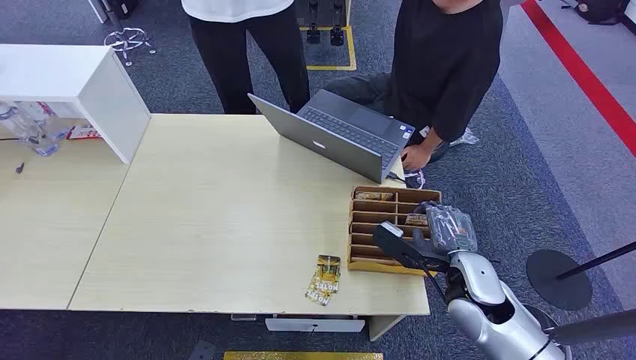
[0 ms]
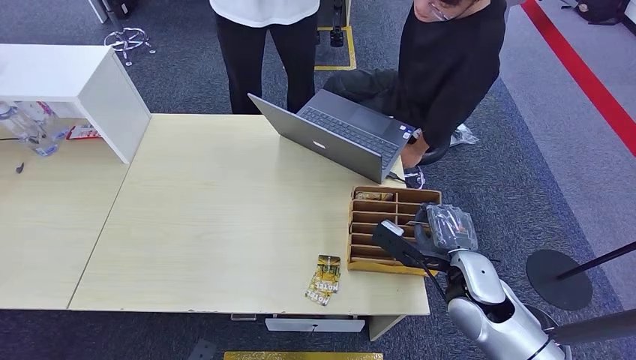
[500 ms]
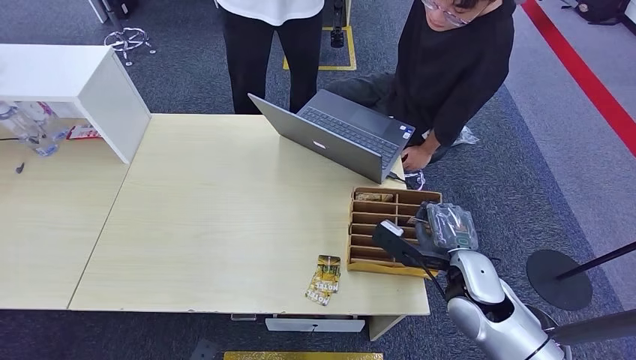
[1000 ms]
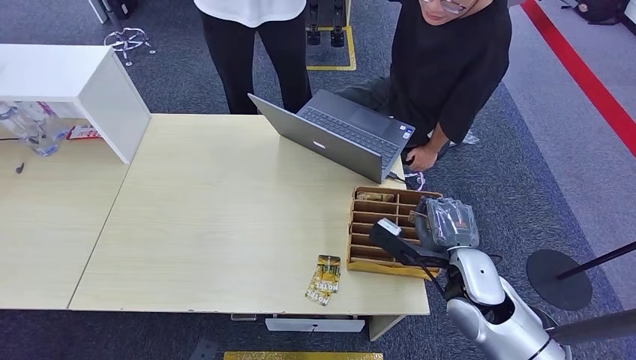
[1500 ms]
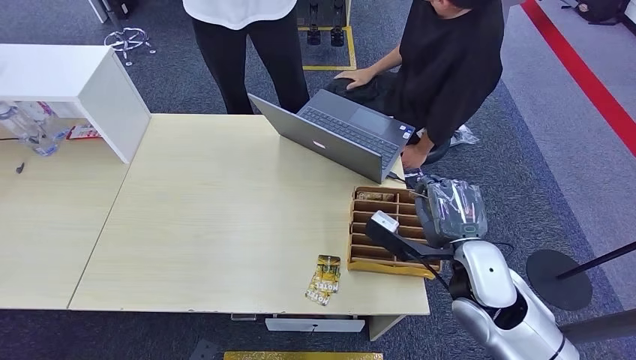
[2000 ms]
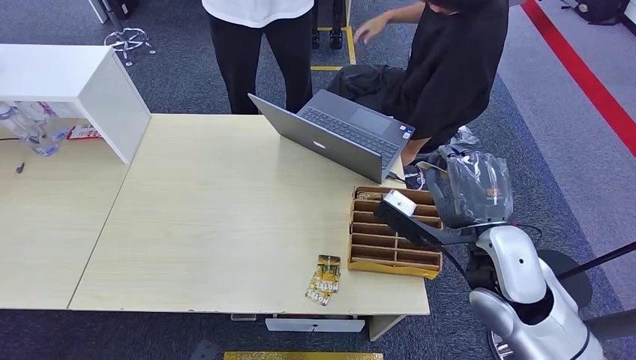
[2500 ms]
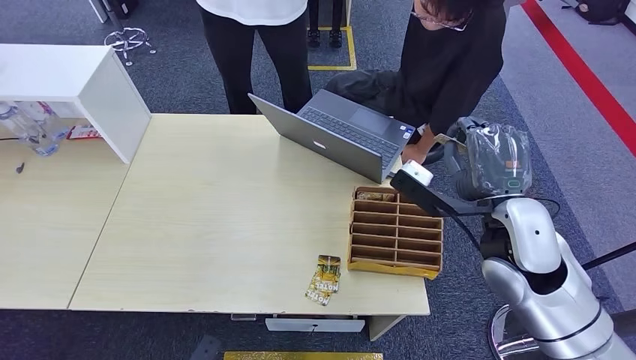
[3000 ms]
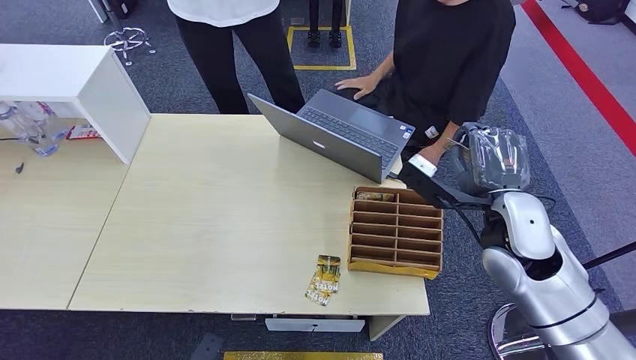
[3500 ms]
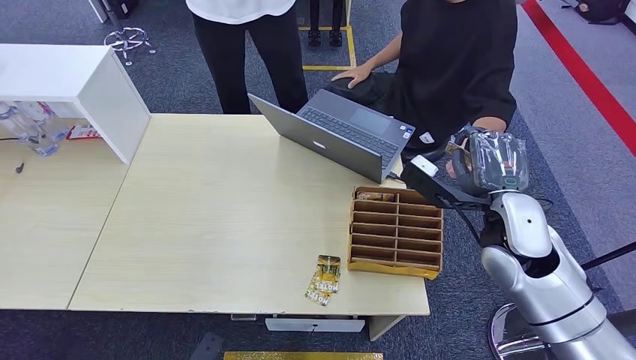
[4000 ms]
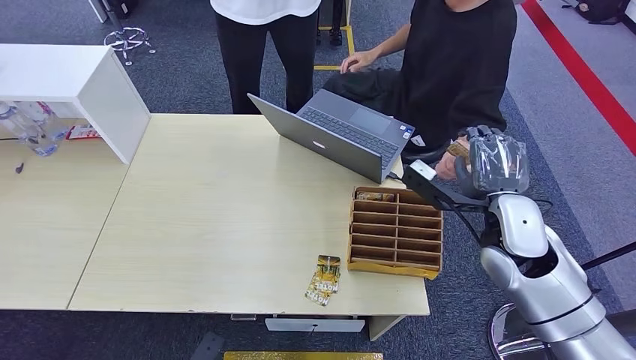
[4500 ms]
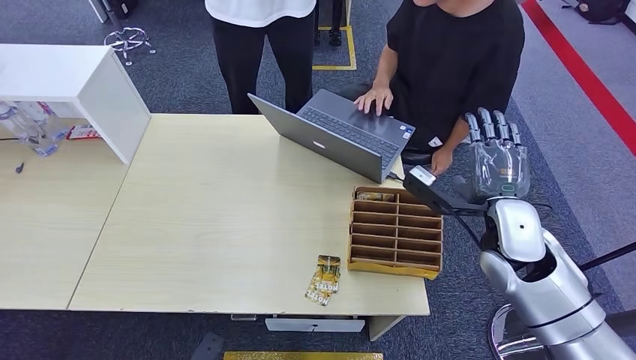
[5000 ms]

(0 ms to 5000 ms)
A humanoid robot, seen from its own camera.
Step, 0 ms - 3000 ms: Pick up the key card from the card box.
Step, 3500 ms - 5000 ms: Hand the key card to the target.
2500 ms - 5000 ms: The right hand is displaced forward and to the right by roughly 10 cm.
